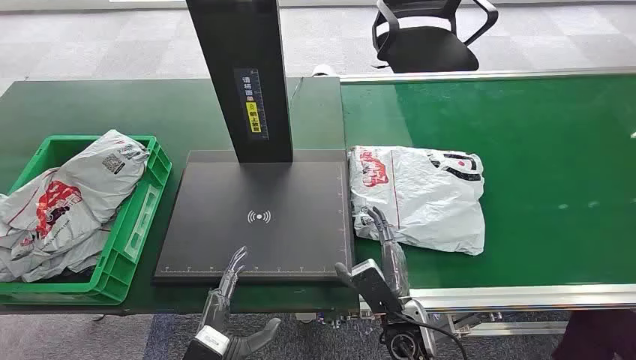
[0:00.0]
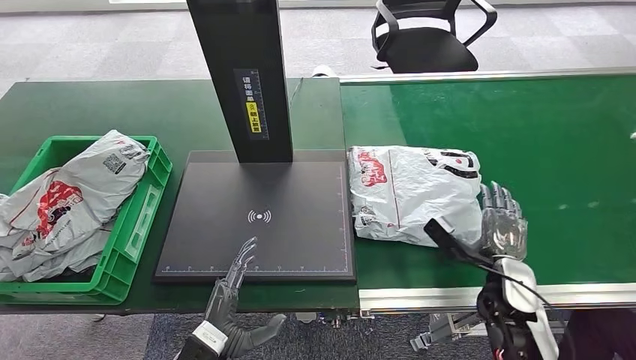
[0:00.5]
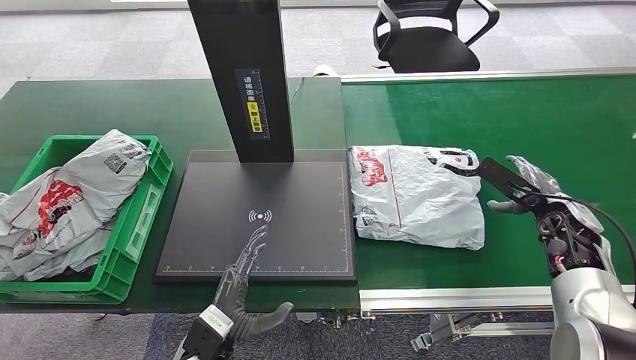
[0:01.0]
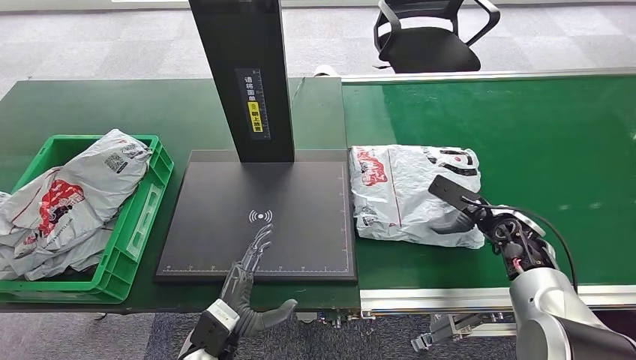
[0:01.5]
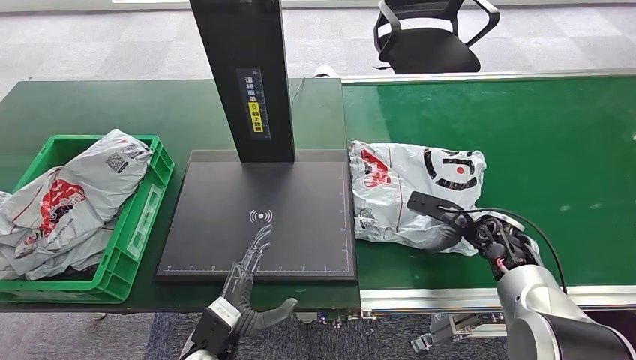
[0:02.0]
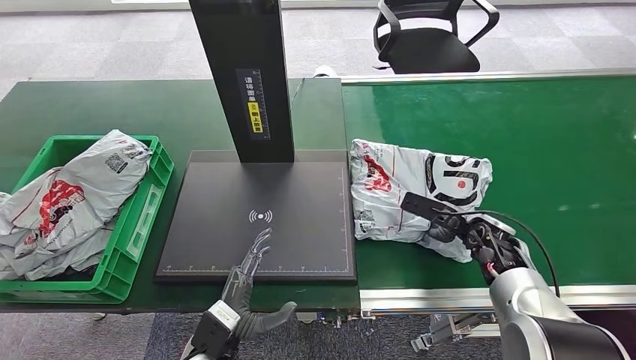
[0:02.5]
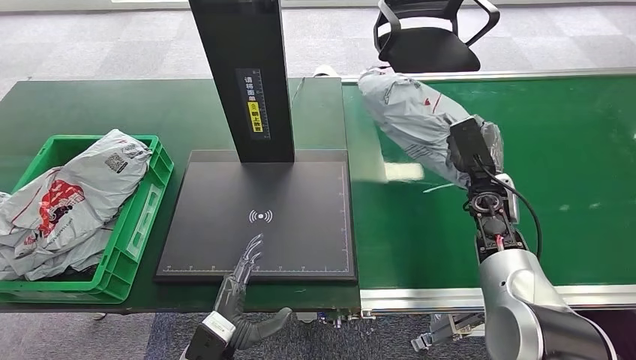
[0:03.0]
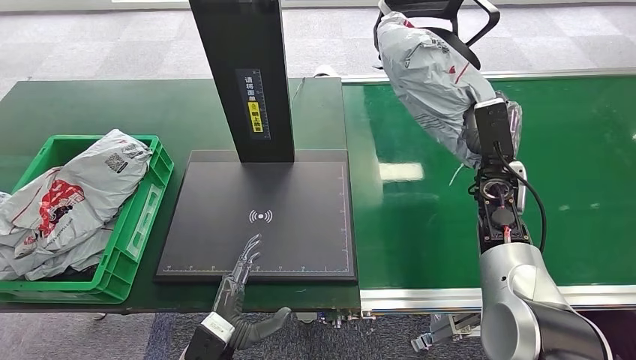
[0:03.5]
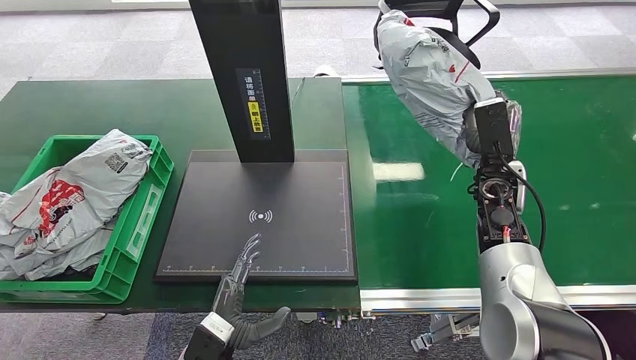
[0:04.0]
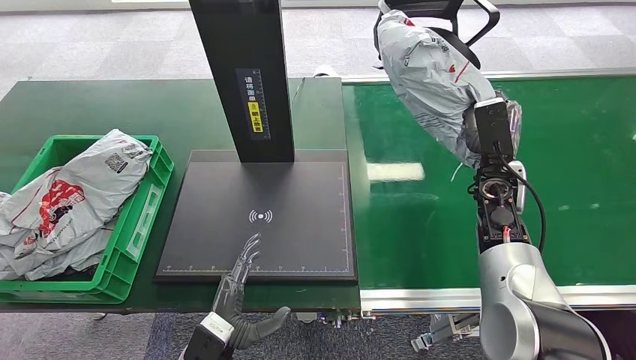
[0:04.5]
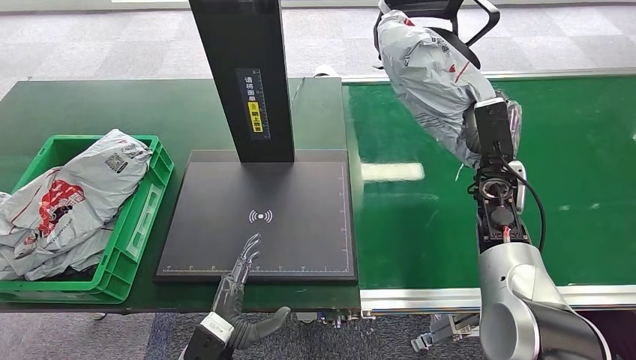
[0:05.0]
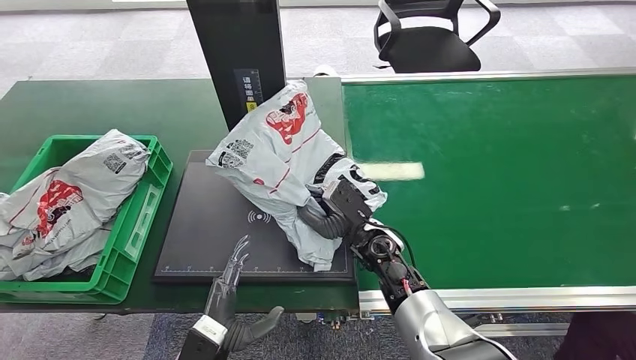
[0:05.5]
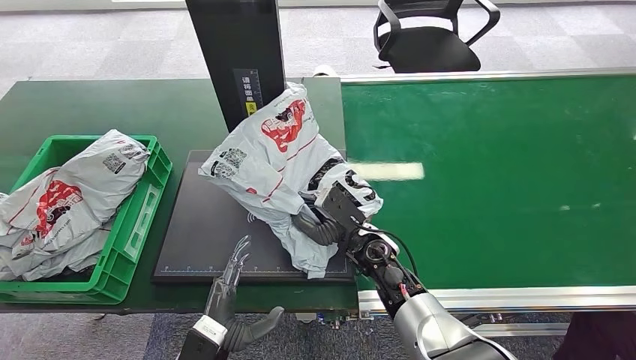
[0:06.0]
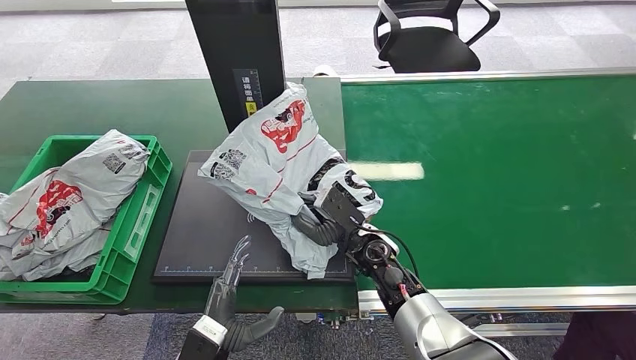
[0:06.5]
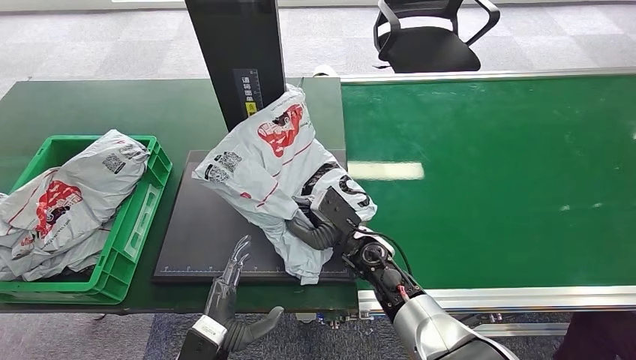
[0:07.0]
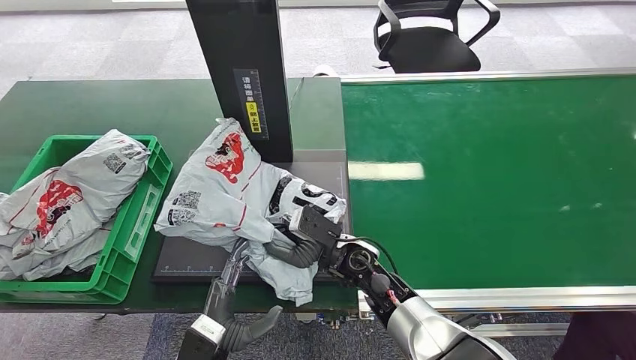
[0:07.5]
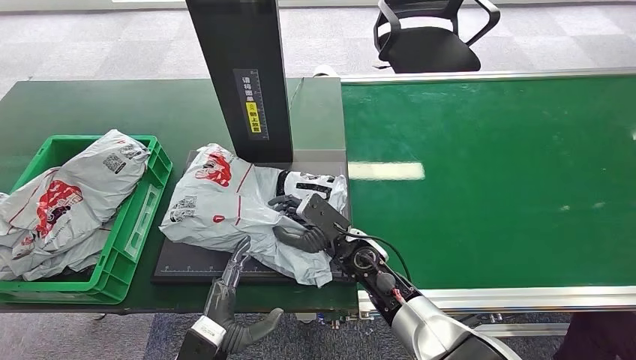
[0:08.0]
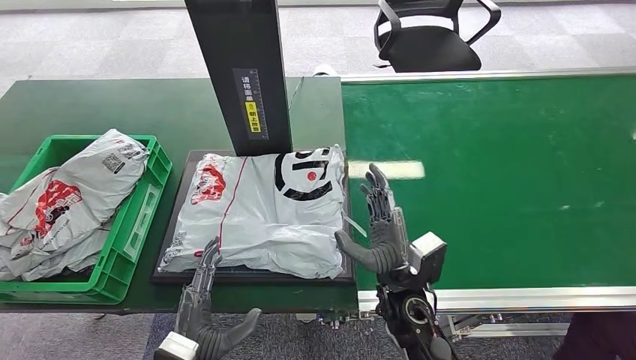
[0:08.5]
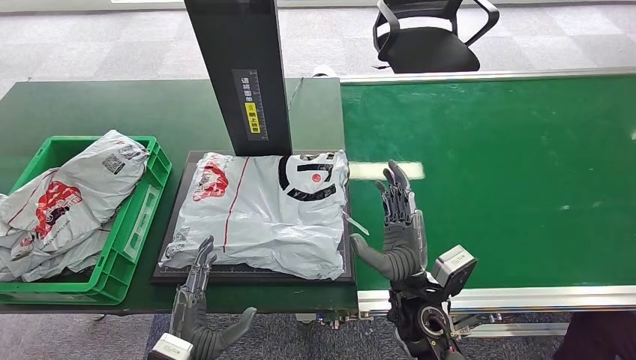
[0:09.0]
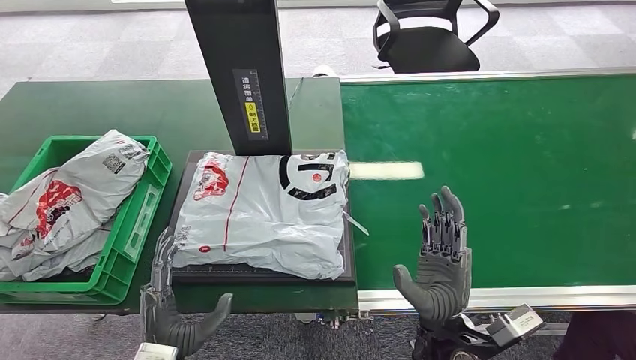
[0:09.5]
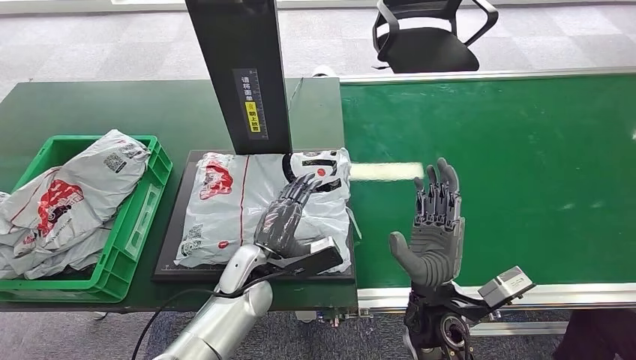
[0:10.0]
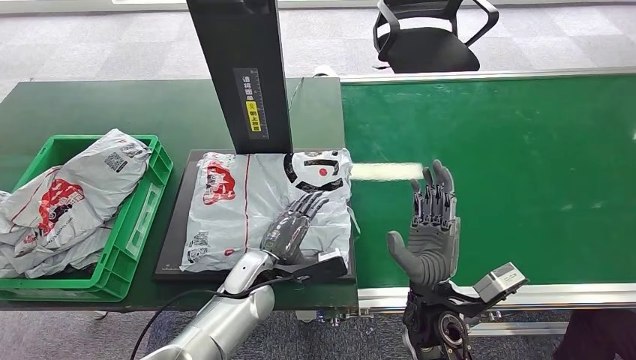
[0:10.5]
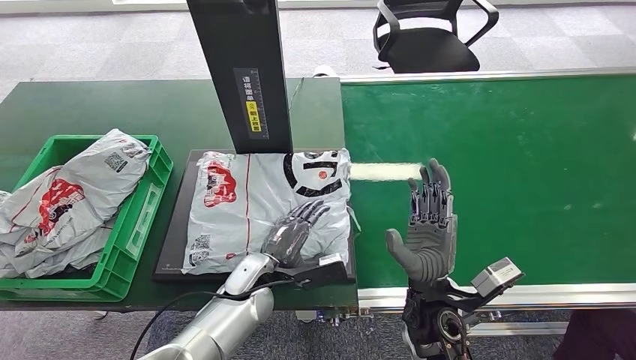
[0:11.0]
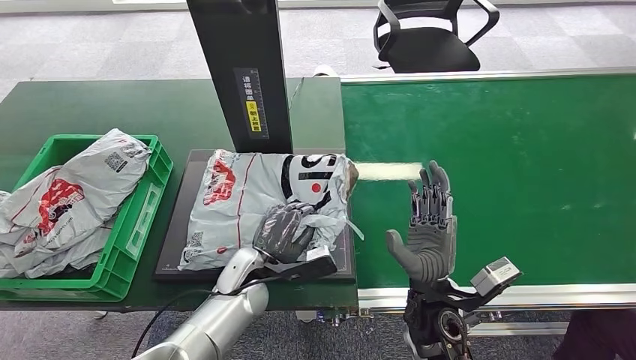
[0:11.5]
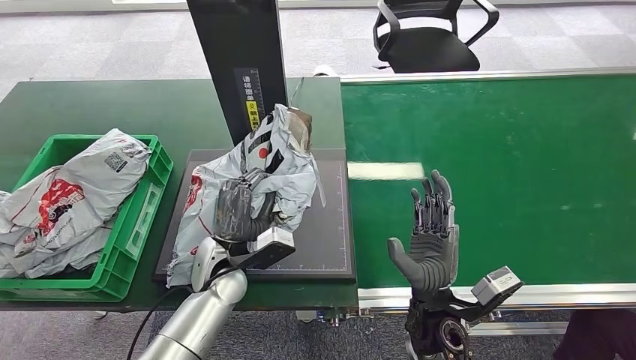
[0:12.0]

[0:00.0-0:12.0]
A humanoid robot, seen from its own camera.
Step, 0:00.0 to 0:03.5: Pick up the package from the conveyor belt.
Step, 0:04.0 to 0:09.0: Place the package onto the inbound machine.
0:02.0 to 0:04.0: The right hand travels upward and forward by some 10 cm.
0:06.0 to 0:08.0: The hands stay close to where they were, moving slightly.
0:08.0 to 0:10.0: The left hand moves forward, approximately 15 cm, while the right hand shifts approximately 10 cm backward and to the right.

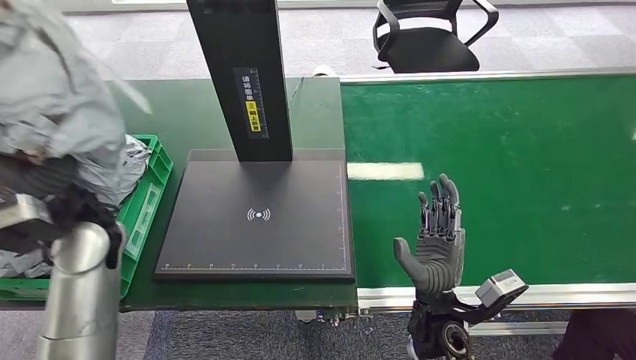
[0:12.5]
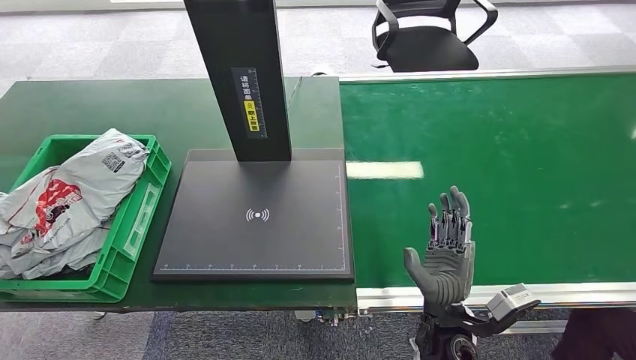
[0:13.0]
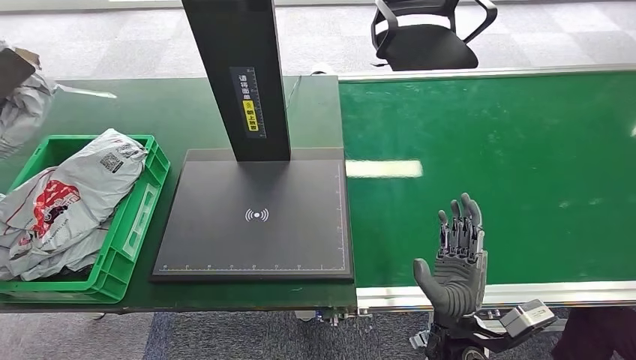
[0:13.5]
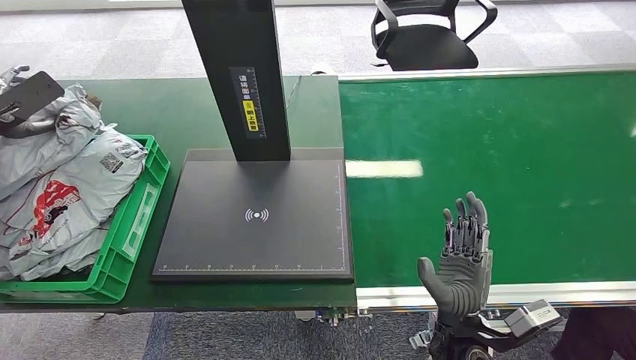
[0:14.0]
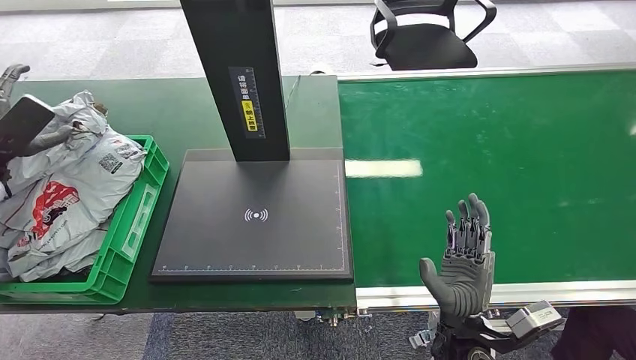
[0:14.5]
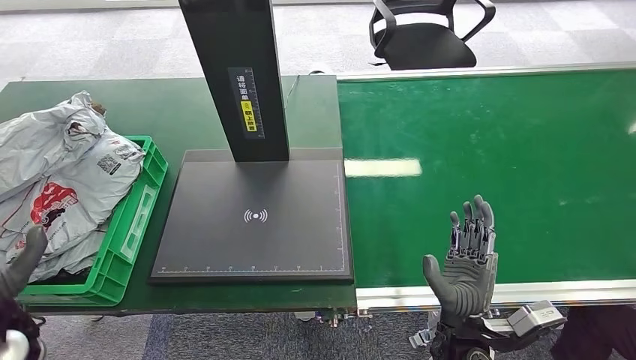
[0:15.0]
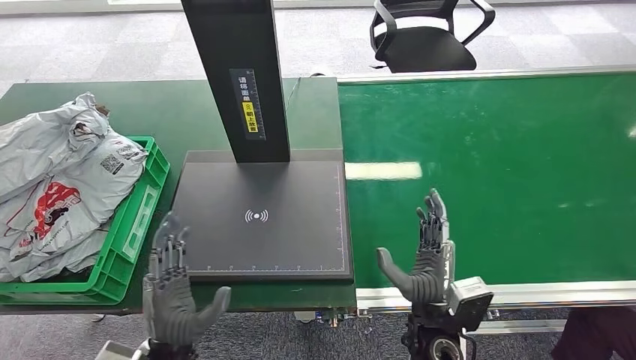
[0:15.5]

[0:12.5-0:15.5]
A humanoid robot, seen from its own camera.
Step, 0:13.0 to 0:15.5: Place the package into the parcel locker.
0:14.0 to 0:15.5: The left hand is displaced to the right, downward and backward by some 50 cm.

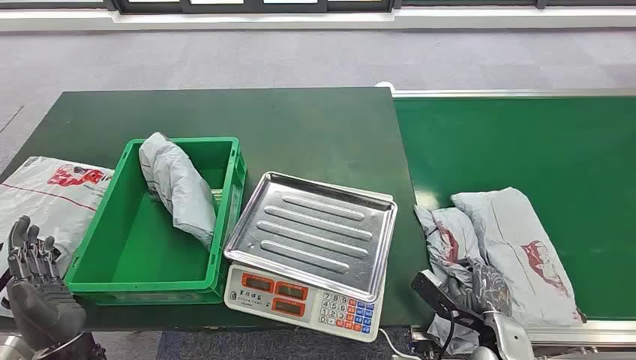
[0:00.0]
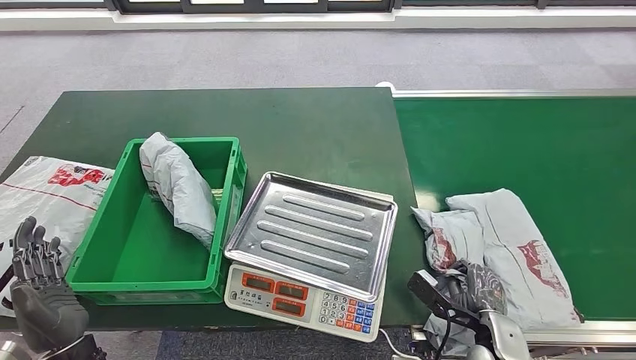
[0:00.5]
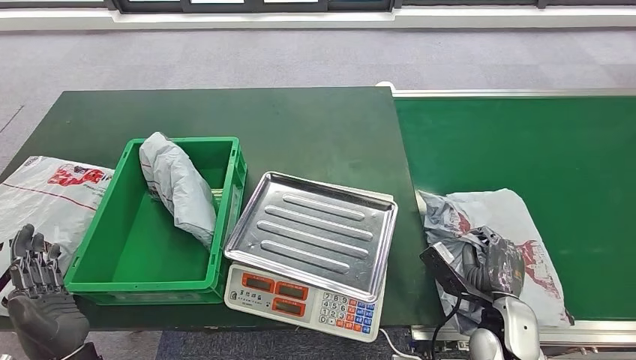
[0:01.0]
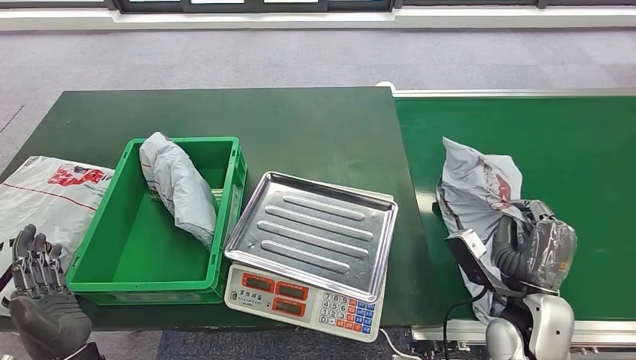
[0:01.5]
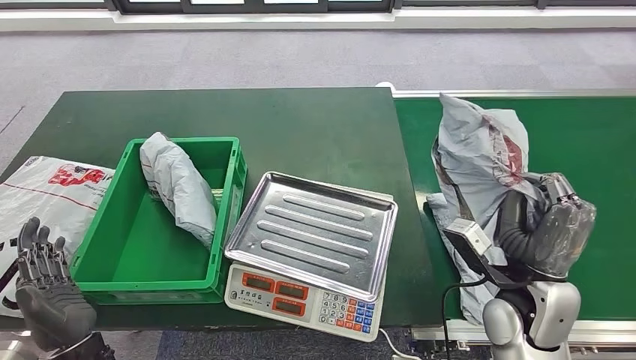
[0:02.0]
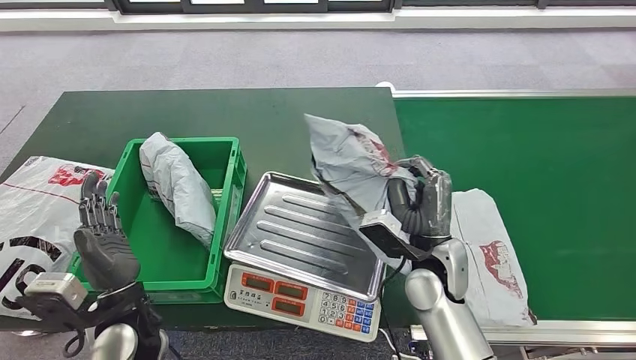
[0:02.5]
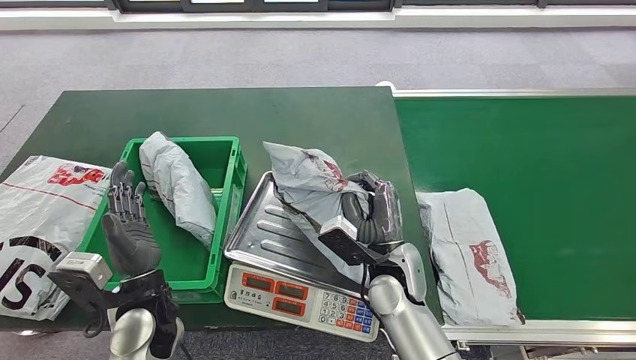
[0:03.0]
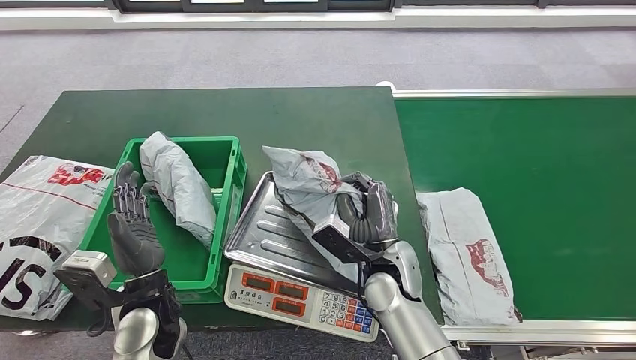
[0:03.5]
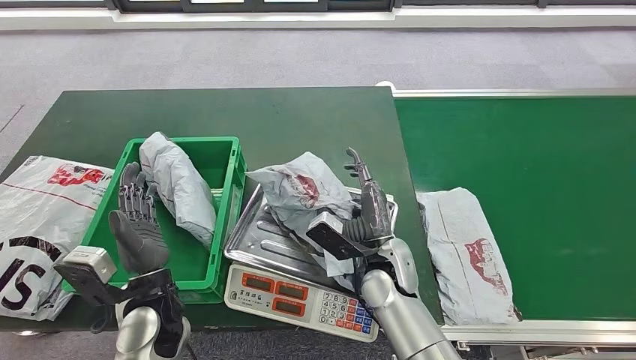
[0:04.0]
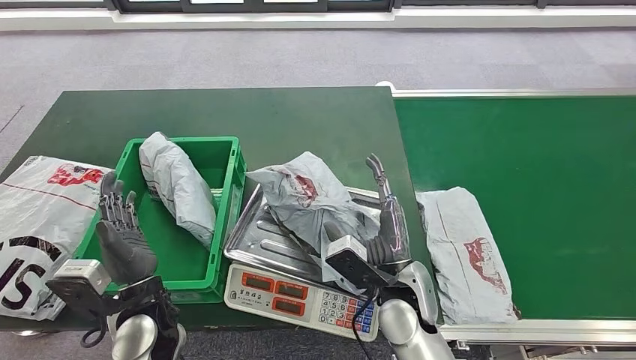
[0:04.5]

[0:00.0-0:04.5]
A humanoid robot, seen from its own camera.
Step, 0:00.0 to 0:01.0: Pick up the package from the conveyor belt.
Step, 0:01.5 to 0:04.0: Place the package onto the inbound machine.
